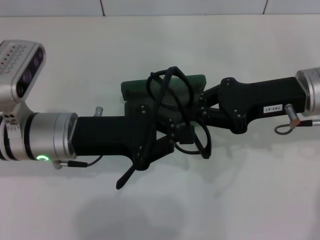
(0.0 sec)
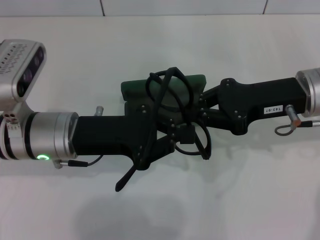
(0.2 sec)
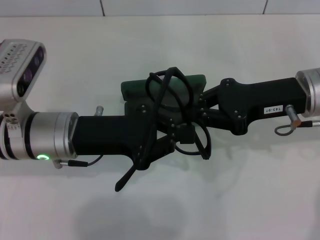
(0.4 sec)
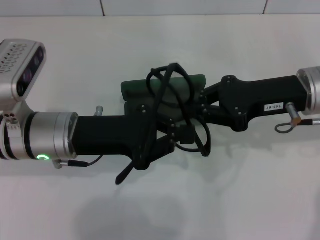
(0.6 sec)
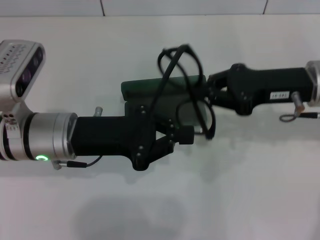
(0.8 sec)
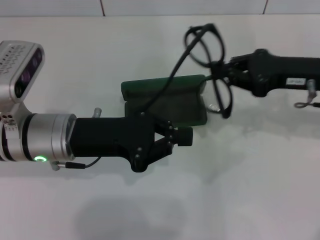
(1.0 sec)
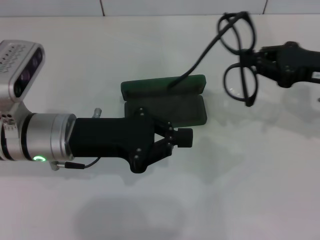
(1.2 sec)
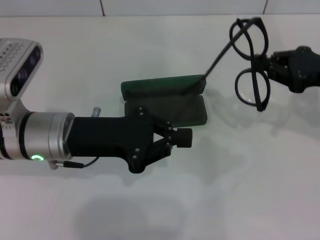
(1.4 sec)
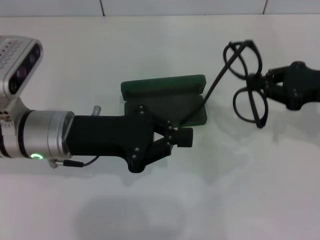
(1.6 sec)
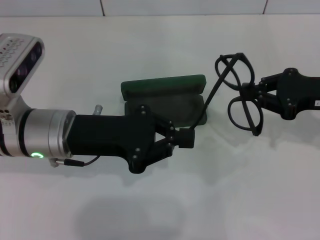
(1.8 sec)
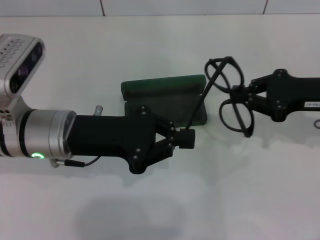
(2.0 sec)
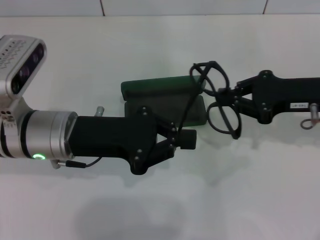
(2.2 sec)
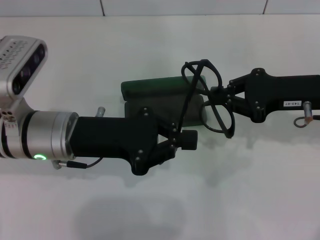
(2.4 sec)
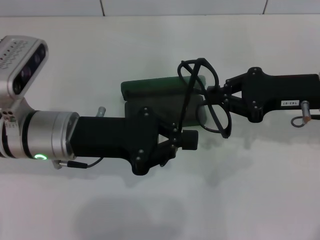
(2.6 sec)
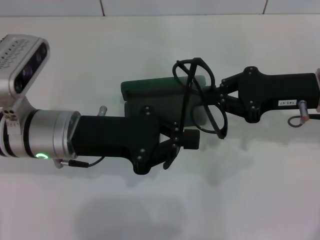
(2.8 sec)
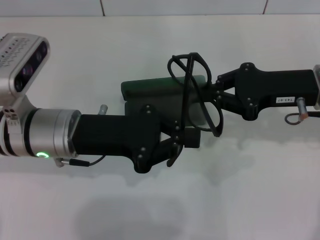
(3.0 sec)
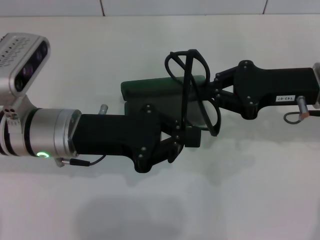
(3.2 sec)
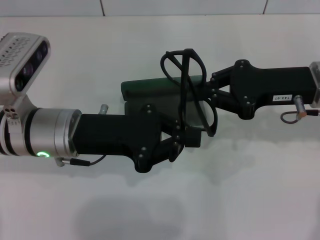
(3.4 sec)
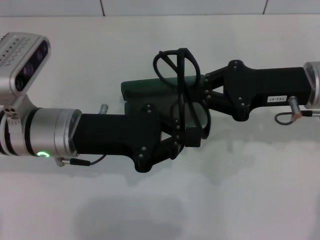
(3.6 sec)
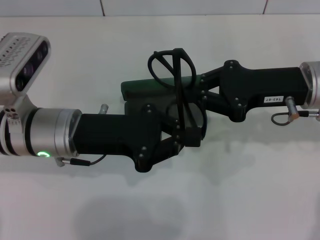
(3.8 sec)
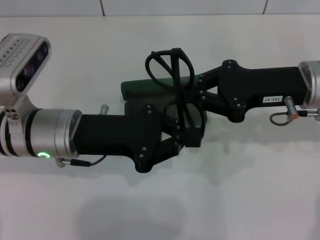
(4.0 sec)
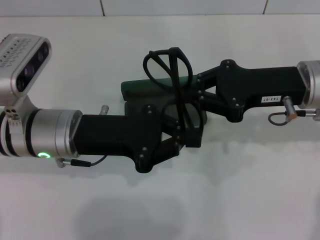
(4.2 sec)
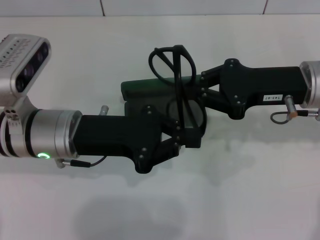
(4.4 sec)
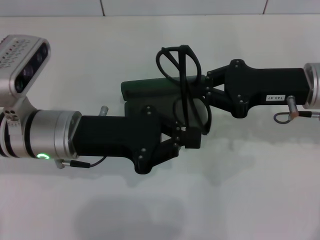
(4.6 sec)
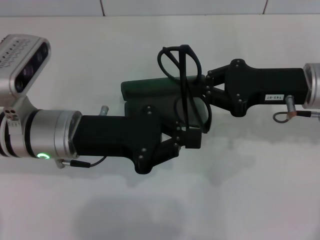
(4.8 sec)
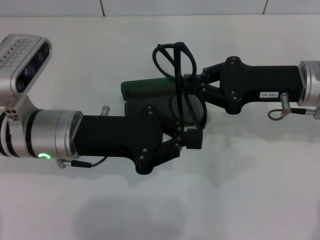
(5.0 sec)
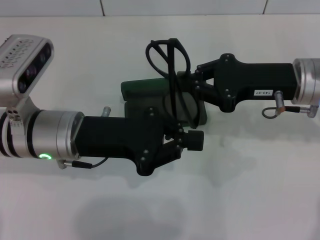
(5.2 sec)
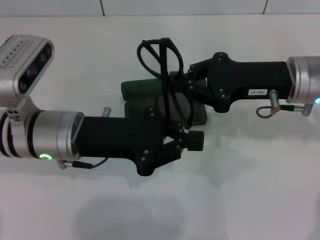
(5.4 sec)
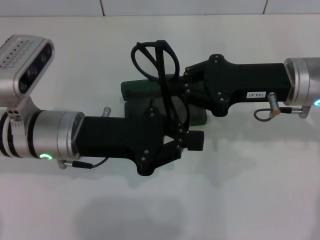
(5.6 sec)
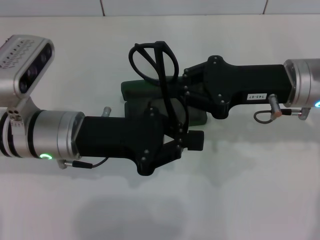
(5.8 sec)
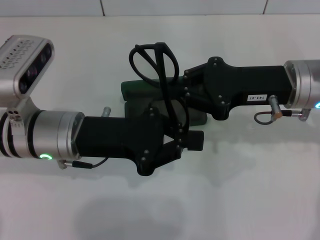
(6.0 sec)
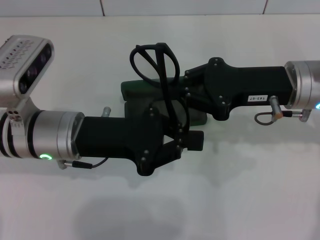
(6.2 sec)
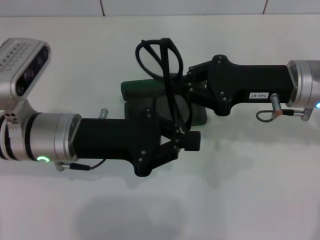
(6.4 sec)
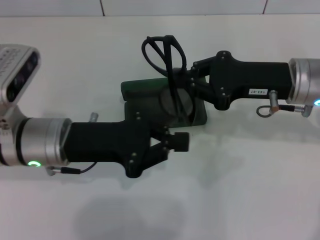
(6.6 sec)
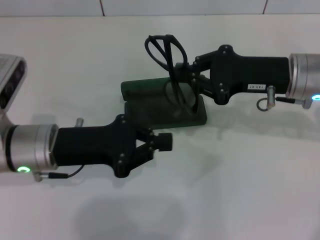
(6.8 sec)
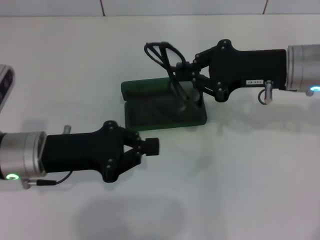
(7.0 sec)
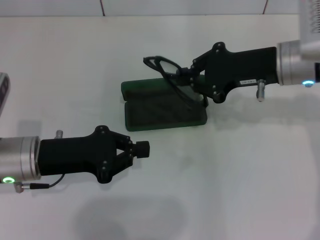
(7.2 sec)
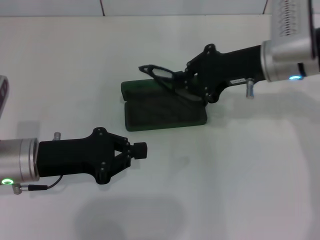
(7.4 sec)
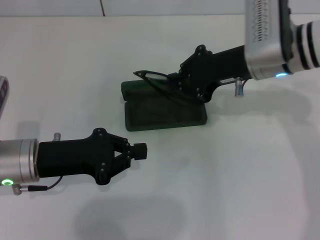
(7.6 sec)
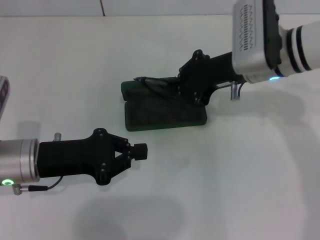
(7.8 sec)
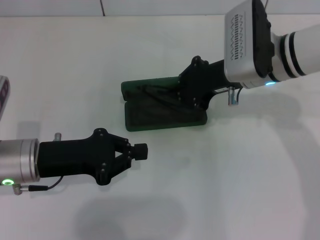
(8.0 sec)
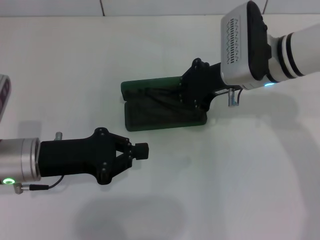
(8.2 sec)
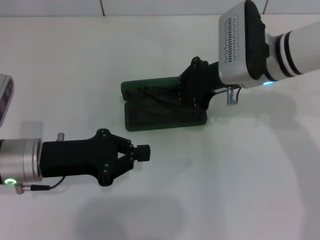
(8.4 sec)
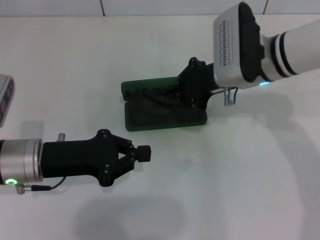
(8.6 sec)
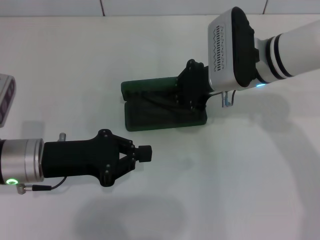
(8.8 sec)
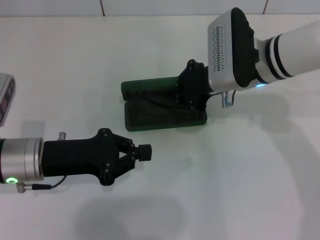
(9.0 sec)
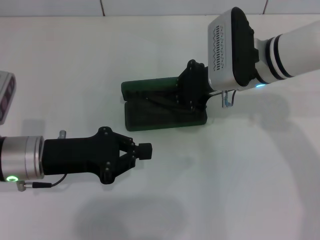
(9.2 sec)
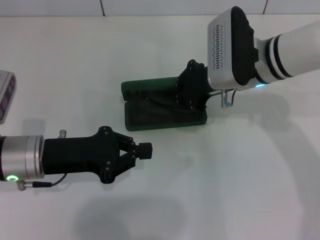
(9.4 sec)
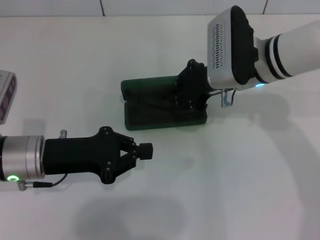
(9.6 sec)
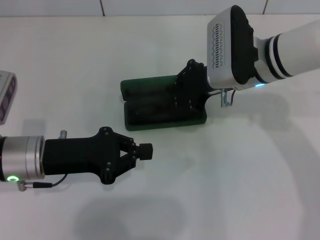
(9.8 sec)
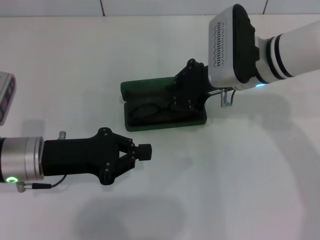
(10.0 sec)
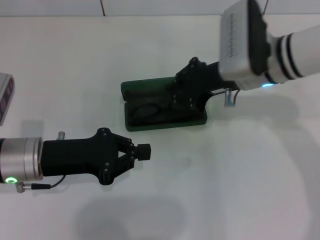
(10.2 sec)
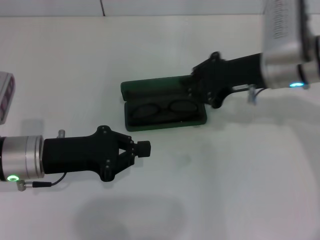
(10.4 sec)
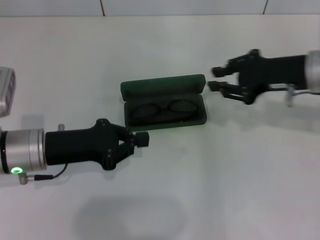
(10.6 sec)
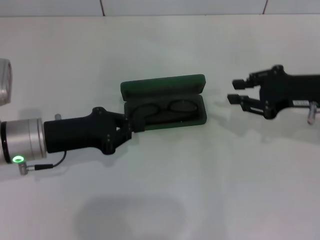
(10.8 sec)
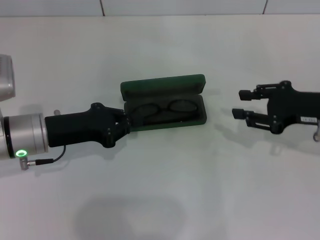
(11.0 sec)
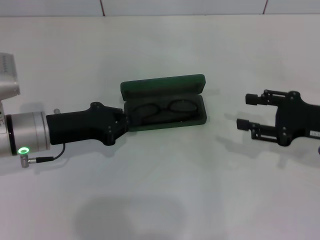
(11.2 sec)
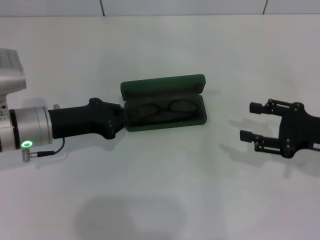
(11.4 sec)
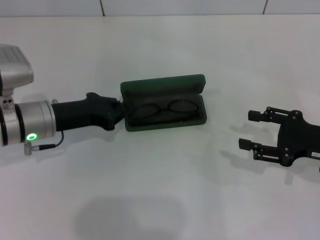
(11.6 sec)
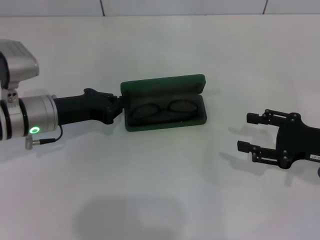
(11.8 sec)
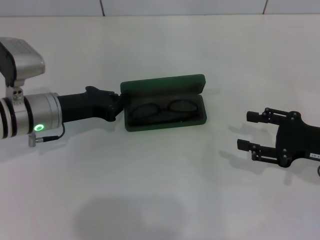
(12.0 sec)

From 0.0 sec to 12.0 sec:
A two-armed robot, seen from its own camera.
Step, from 6.0 sec to 10.0 sec: Put the glasses into the case with your right hand.
From 0.0 sec to 1.6 sec: The right gripper shifts about 10 cm to the right.
From 1.6 sec to 3.0 sec: The right gripper heads to the left, covering some 5 cm.
From 3.0 sec to 6.0 sec: There are only small adjustments of the grippers.
From 6.0 sec to 7.6 sec: The right gripper heads forward, covering roughly 5 cm; the left gripper moves to the left, some 5 cm.
From 7.6 sec to 9.0 sec: The grippers move only a little.
From 9.0 sec to 10.4 sec: The right gripper changes place by approximately 5 cm.
From 10.4 sec to 12.0 sec: The left gripper moves forward, about 5 cm, while the right gripper heads to the right, backward and downward, covering about 20 cm, and opens.

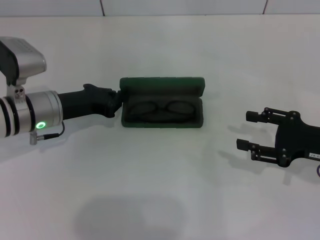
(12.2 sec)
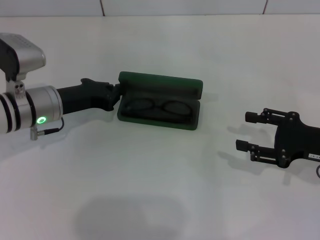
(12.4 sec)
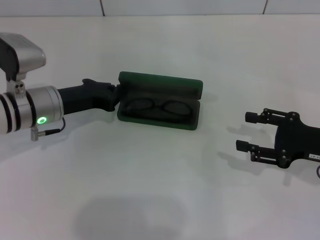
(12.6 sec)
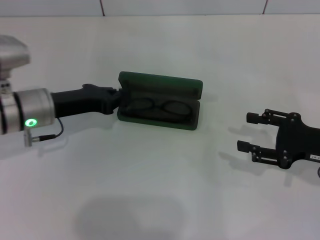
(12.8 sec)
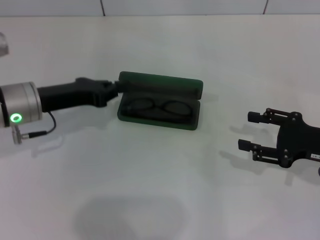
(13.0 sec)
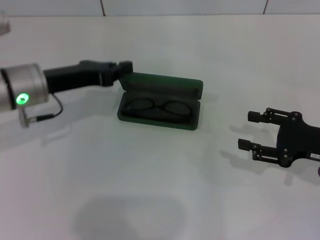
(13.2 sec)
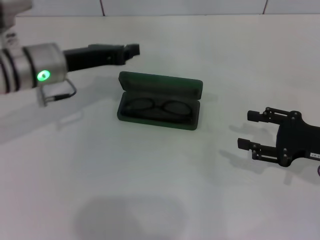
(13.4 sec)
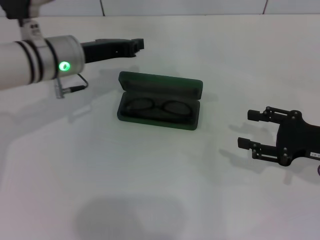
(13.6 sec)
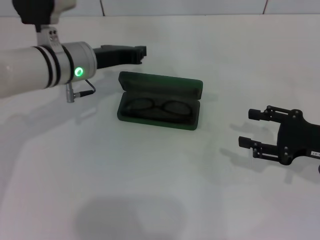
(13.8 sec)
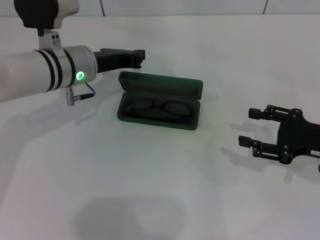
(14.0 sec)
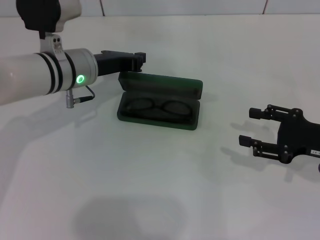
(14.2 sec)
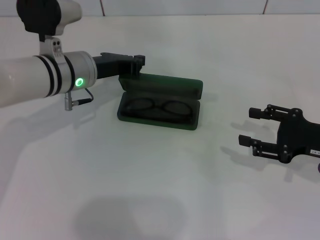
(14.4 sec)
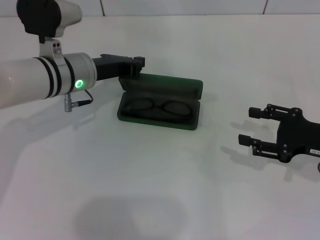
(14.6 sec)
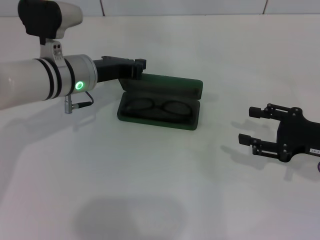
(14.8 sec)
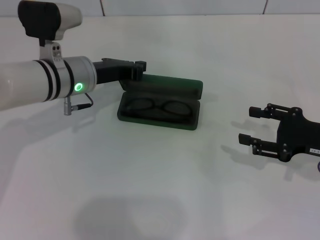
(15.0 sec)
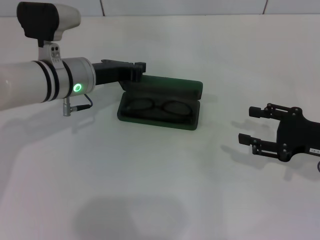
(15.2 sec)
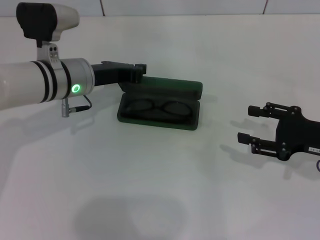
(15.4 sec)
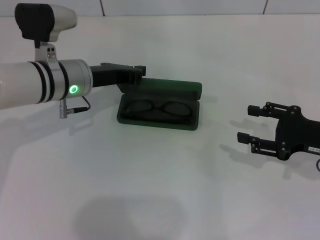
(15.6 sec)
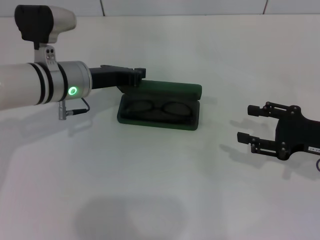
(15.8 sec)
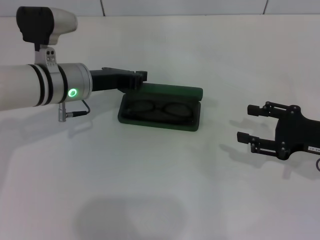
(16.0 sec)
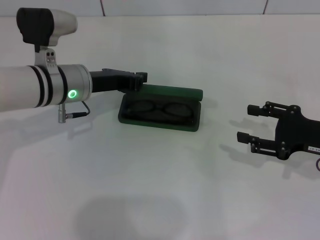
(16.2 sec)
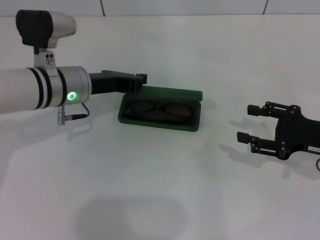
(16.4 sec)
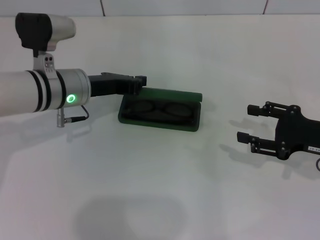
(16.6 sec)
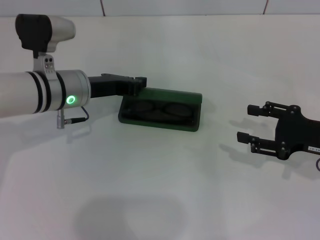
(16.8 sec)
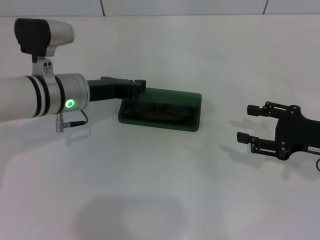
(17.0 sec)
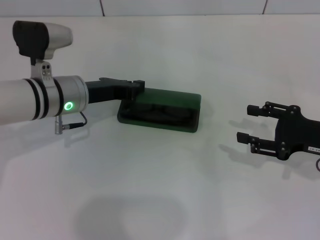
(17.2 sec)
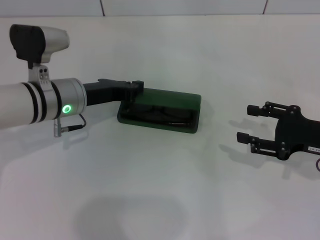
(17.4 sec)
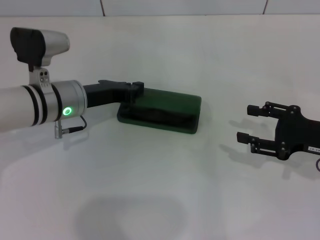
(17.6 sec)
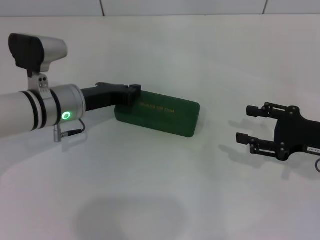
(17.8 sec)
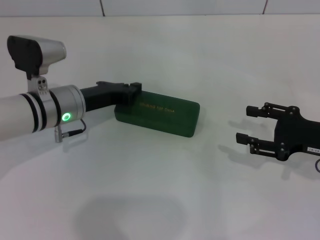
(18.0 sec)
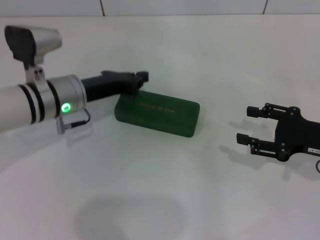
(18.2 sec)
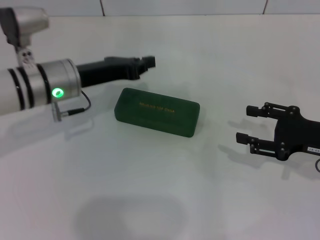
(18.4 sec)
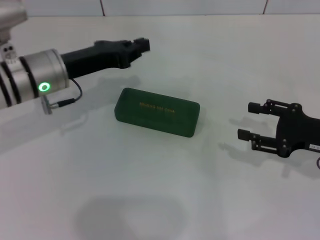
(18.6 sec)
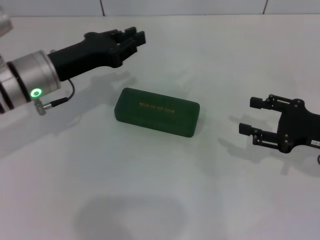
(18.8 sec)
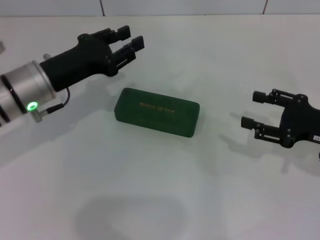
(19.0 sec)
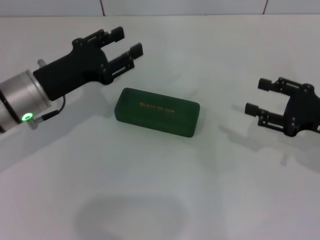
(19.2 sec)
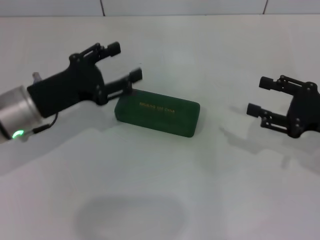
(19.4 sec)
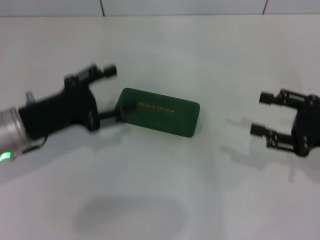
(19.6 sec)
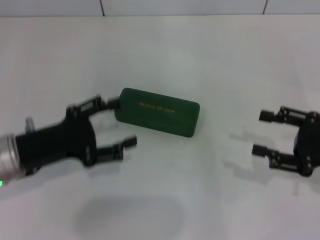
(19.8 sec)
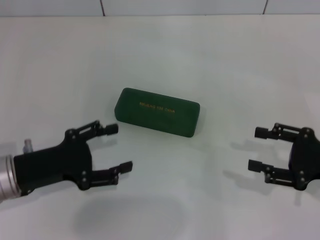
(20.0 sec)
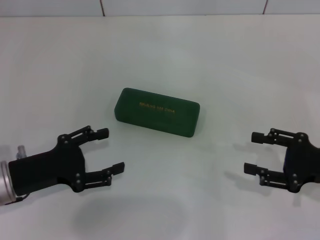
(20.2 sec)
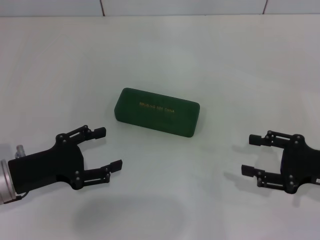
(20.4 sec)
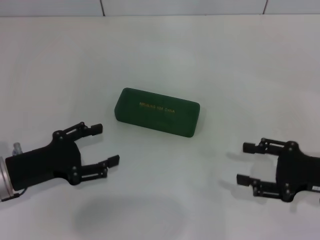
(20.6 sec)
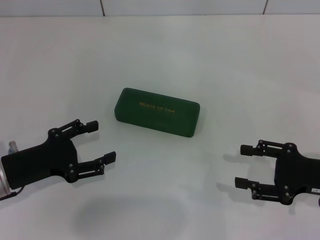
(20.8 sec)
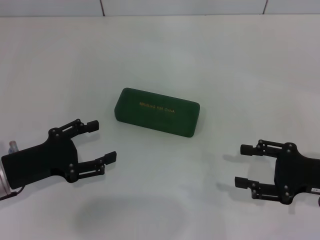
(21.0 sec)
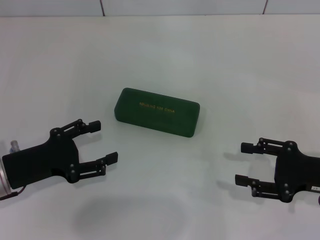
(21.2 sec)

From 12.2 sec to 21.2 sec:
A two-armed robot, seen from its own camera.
Step, from 12.2 sec to 17.8 sec: Close the glasses case with your left hand.
From 12.2 sec to 13.8 sec: The left gripper travels to the right and upward by roughly 10 cm.
From 13.8 sec to 16.6 sec: The grippers stay close to where they were, moving slightly.
From 16.6 sec to 18.2 sec: The grippers move only a little.
From 18.2 sec to 19.8 sec: The left gripper moves backward and to the left, roughly 10 cm, and opens.
From 19.8 sec to 21.2 sec: The grippers stay close to where they were, moving slightly.
